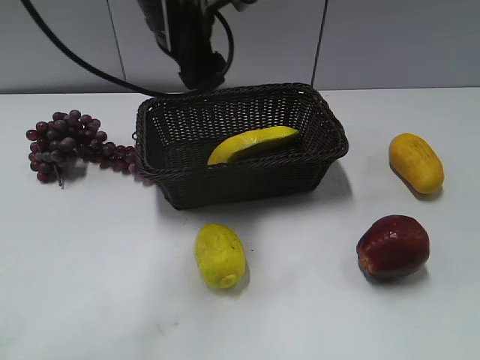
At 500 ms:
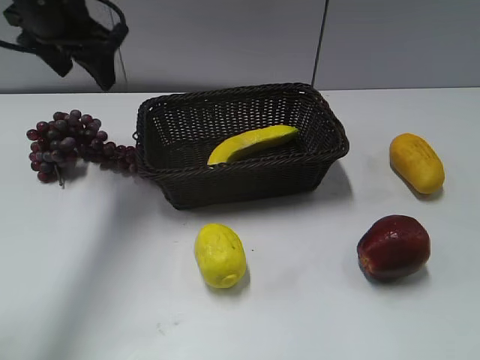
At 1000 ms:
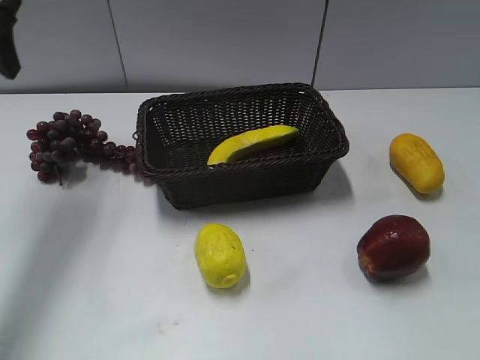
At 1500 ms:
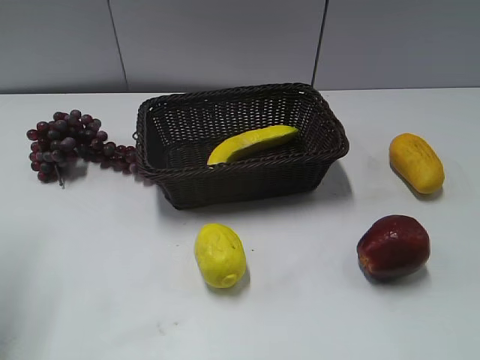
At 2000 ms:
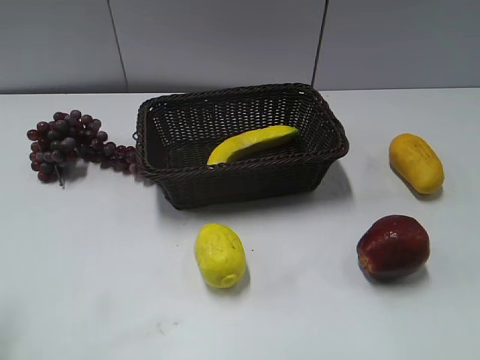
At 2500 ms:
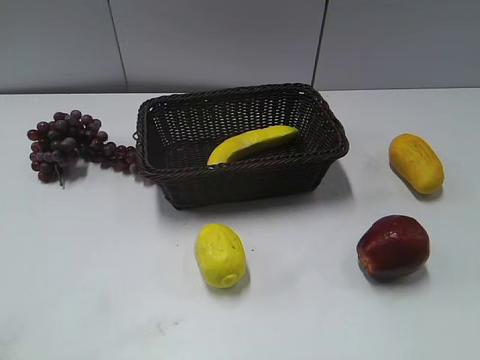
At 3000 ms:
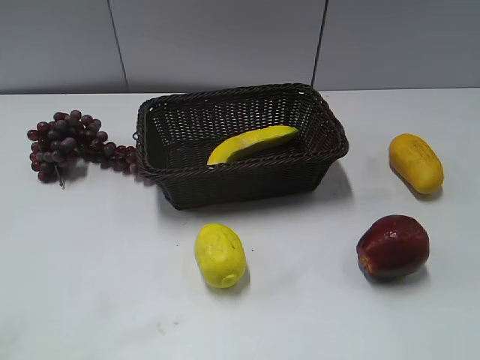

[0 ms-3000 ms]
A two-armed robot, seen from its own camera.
0 ms to 1500 ms: The left gripper heads to the left and backward, covering some 30 cm.
1500 ms to 3000 ms: The left gripper heads backward, covering some 20 cm.
